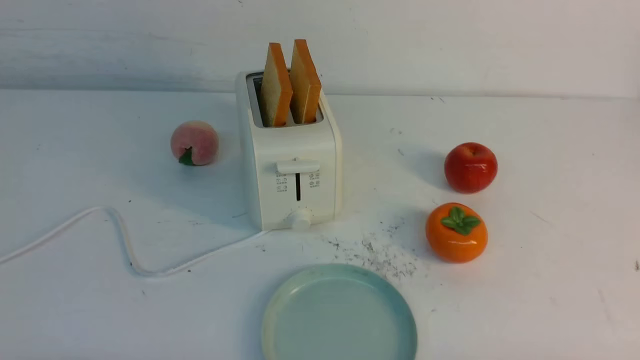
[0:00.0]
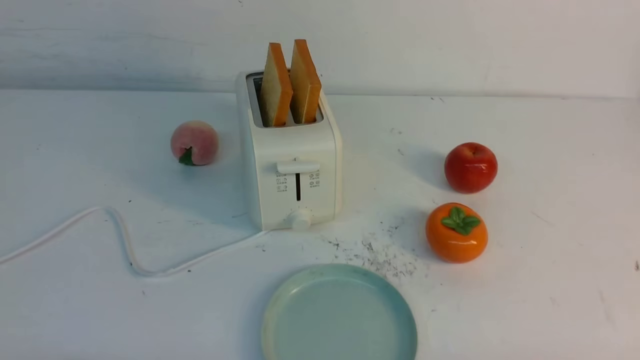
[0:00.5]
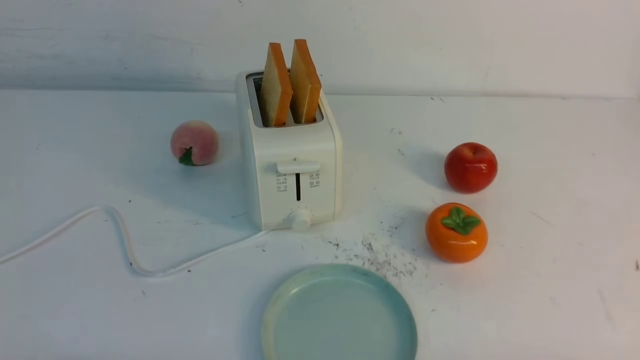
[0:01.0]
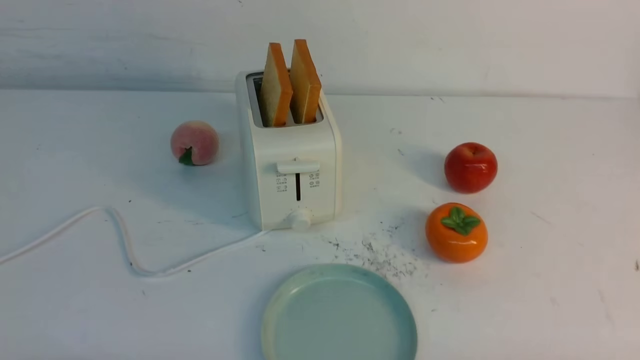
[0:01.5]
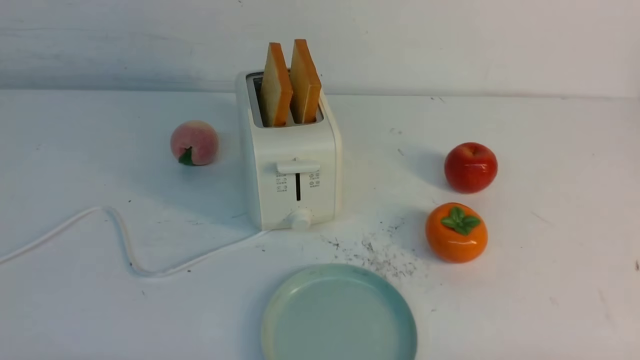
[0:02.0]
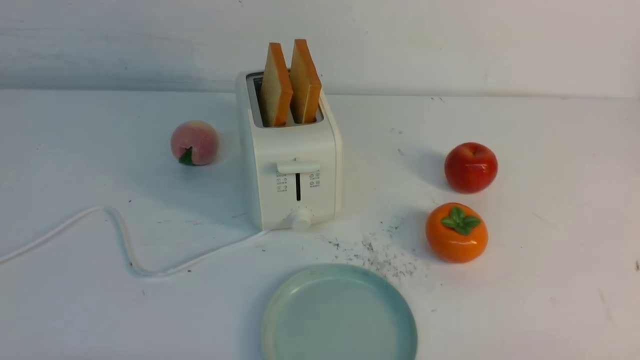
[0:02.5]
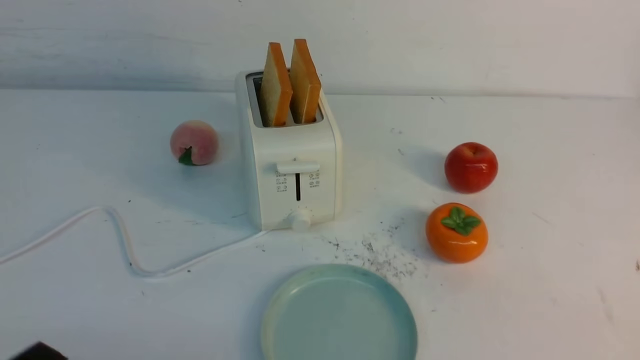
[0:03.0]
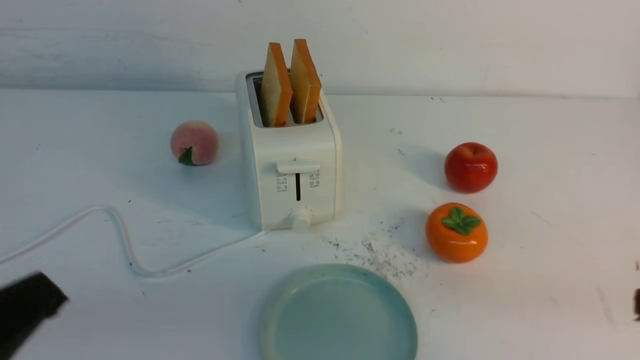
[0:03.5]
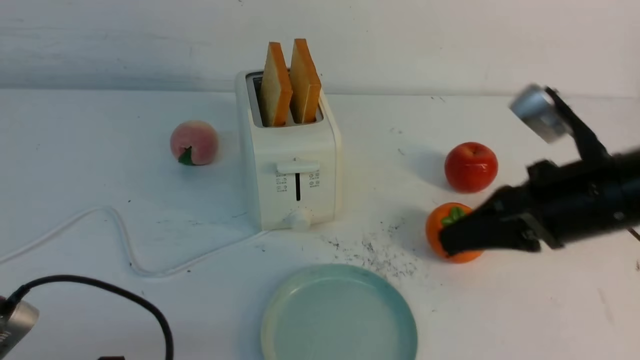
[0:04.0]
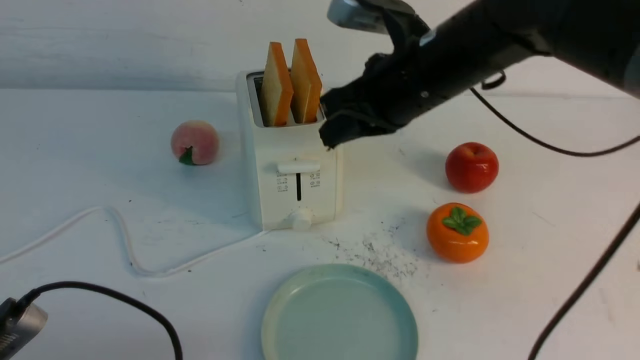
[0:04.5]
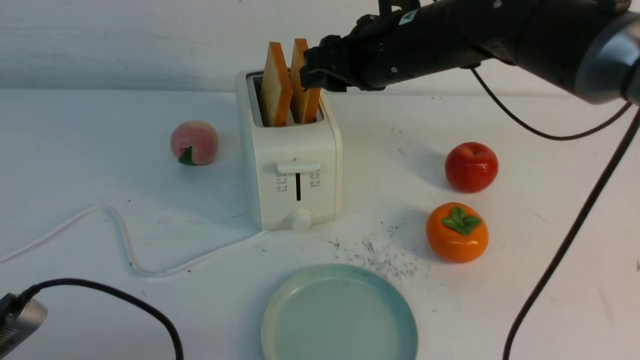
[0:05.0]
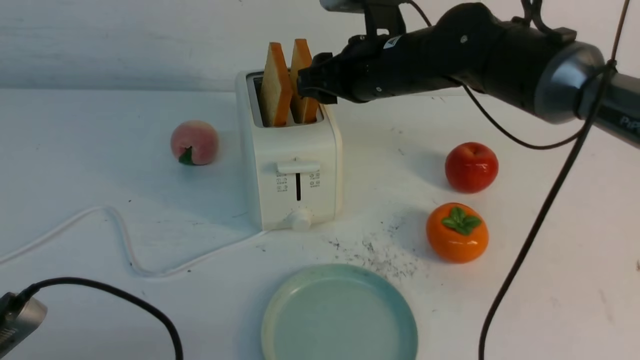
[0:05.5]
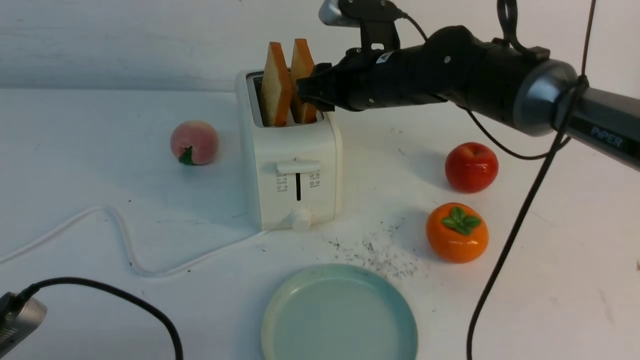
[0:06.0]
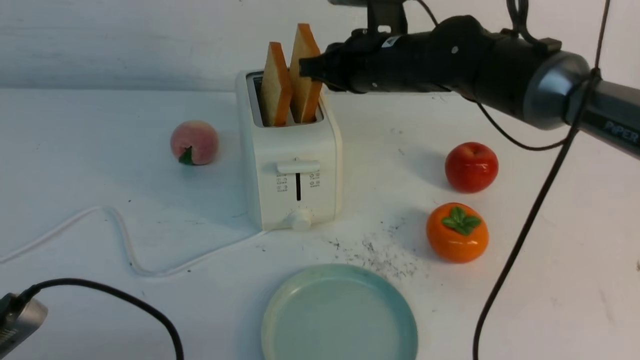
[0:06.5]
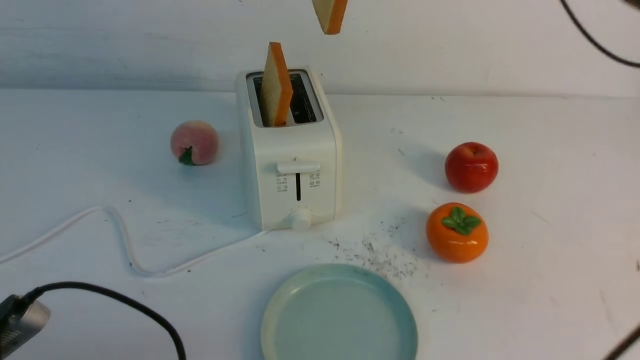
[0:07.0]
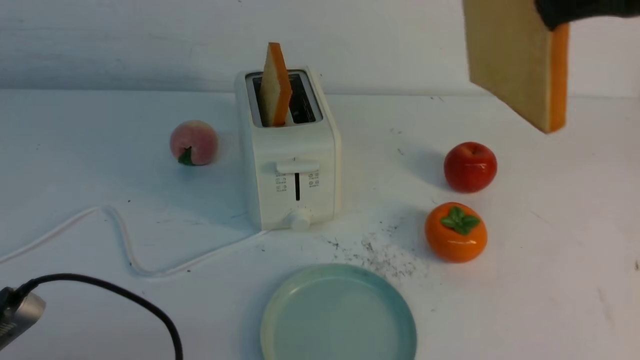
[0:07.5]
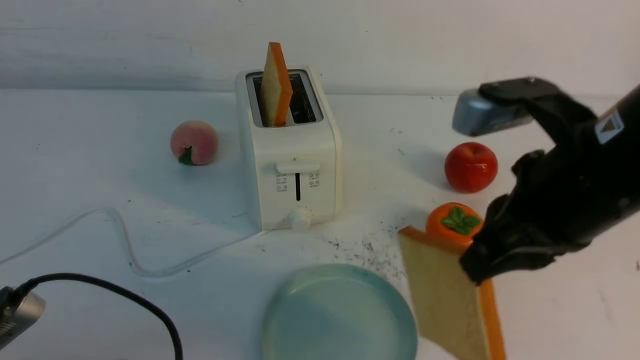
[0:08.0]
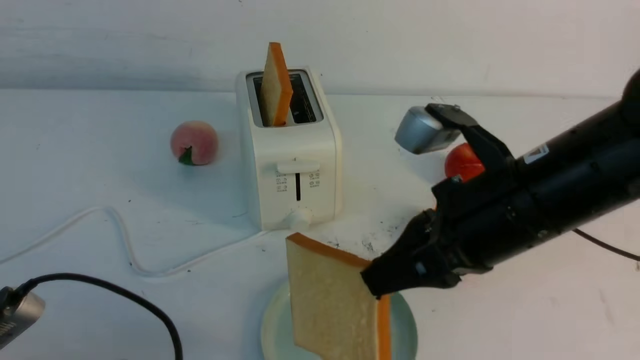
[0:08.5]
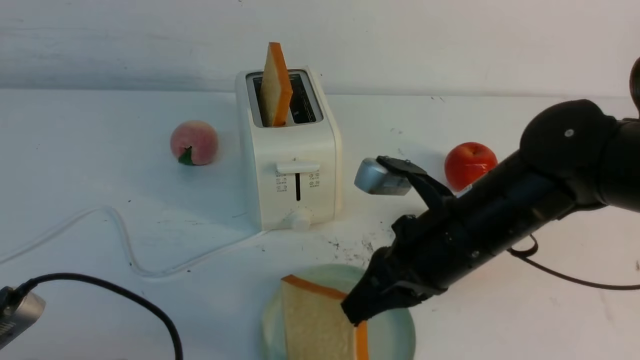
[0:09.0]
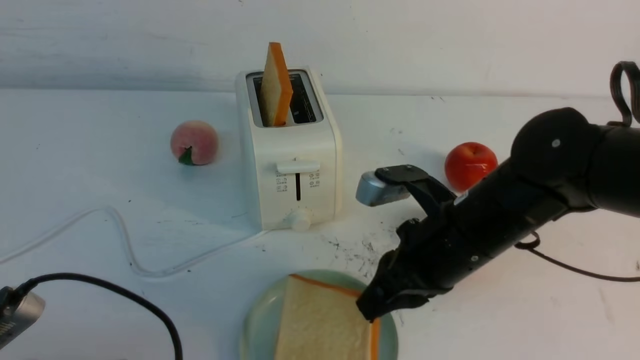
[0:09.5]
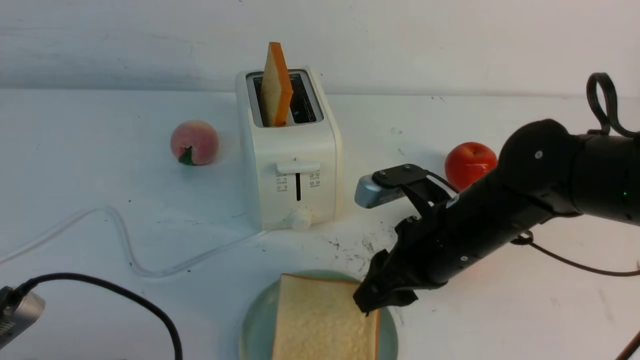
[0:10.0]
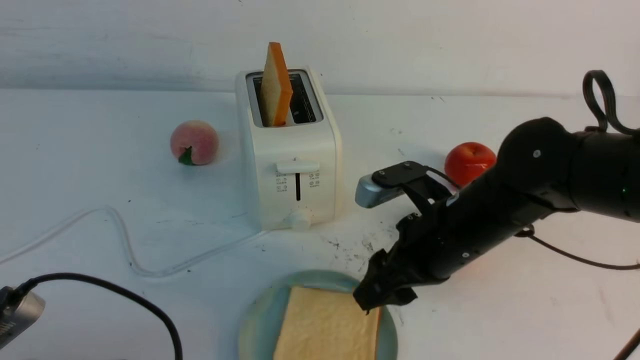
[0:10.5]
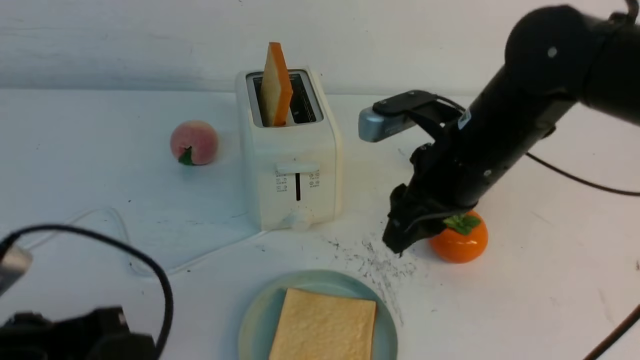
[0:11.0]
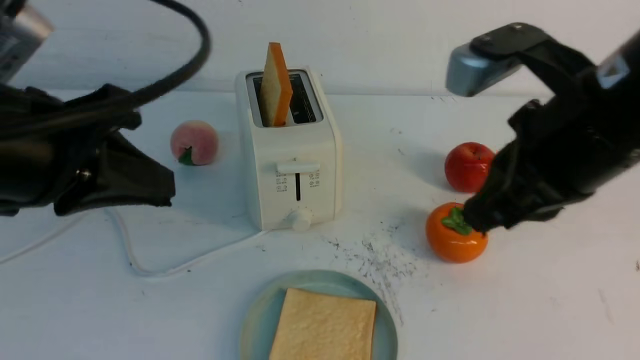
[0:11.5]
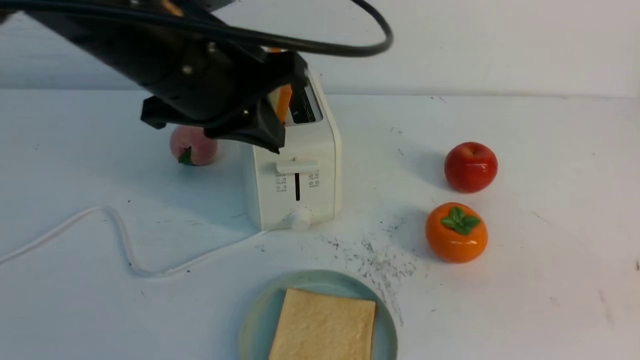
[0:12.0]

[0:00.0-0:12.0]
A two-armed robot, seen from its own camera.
Task of the whole recording: take toasted bread from bread machine on white table place on plate.
Step, 0:00.0 to 0:06.5: use the right arm to take out a slice of bread.
Step, 0:07.0 to 0:10.5: use the right arm to put a slice of bread into the plate.
0:02.0 to 0:04.0: The left gripper travels forward and upward by approximately 10 cm, and closes. The right gripper moves forward, upward and to the left, roughly 25 cm, and closes its fingers.
0:04.0 to 0:06.0: The right gripper shifts roughly 20 cm forward and to the left, and opens its fingers.
0:06.0 to 0:08.0: The right gripper heads backward and to the right, covering some 25 cm, and closes.
0:08.0 to 0:10.0: The right gripper heads downward and forward, covering approximately 15 cm, and opens.
0:10.0 to 0:12.0: The left gripper shifts about 30 cm forward, upward and to the right. Meanwhile the right gripper is displaced backward, upward and to the right by about 30 cm, and closes.

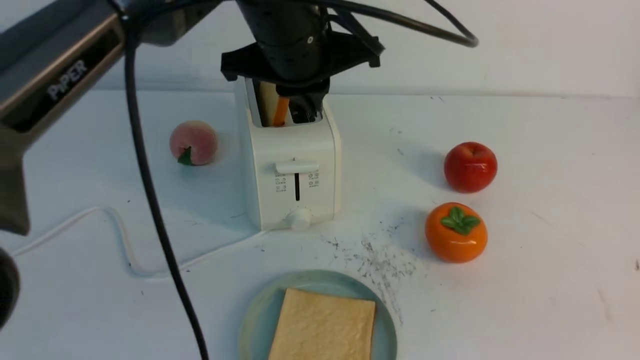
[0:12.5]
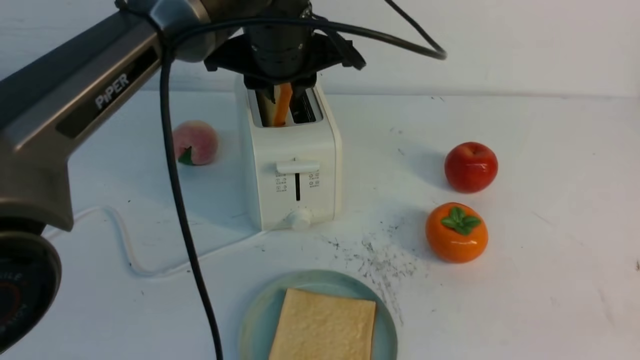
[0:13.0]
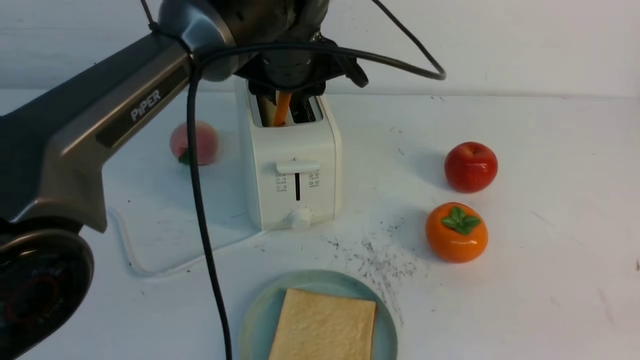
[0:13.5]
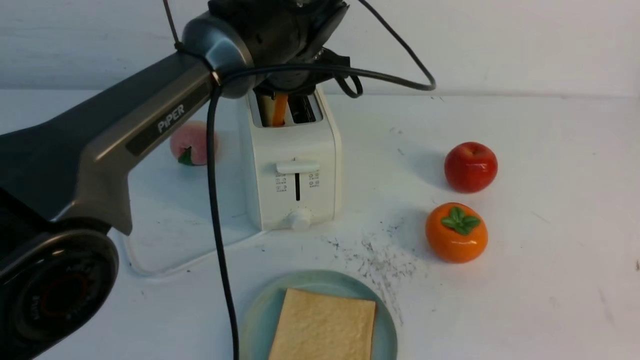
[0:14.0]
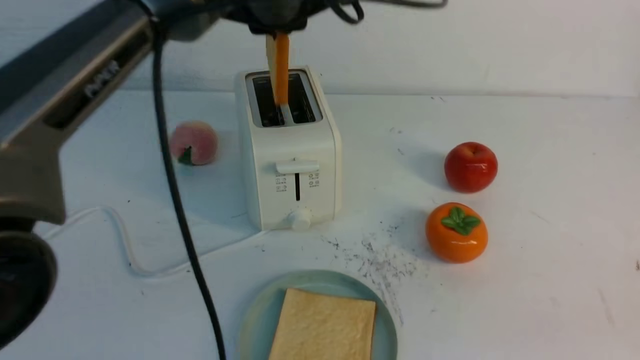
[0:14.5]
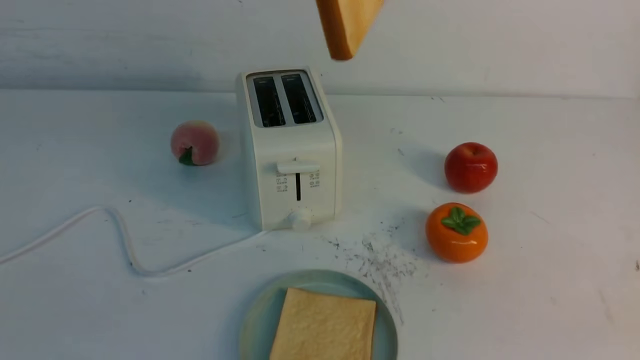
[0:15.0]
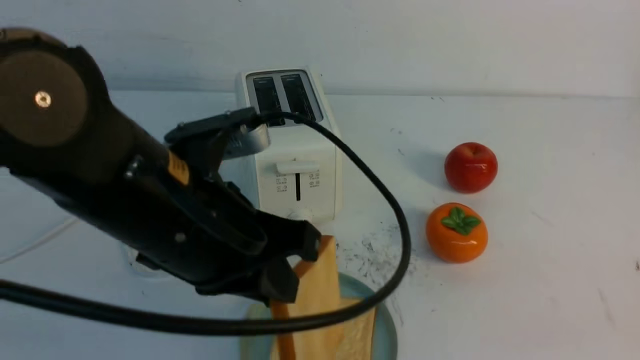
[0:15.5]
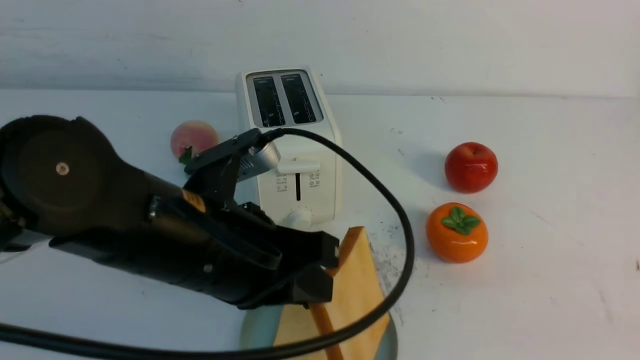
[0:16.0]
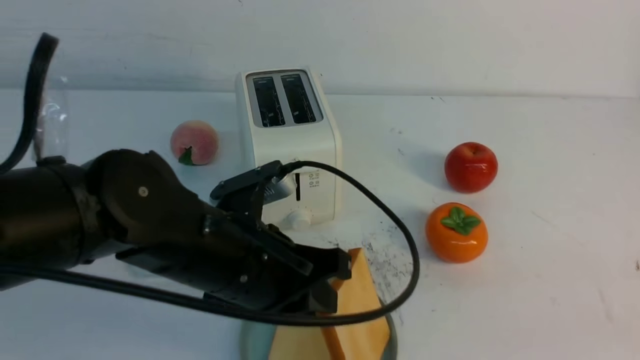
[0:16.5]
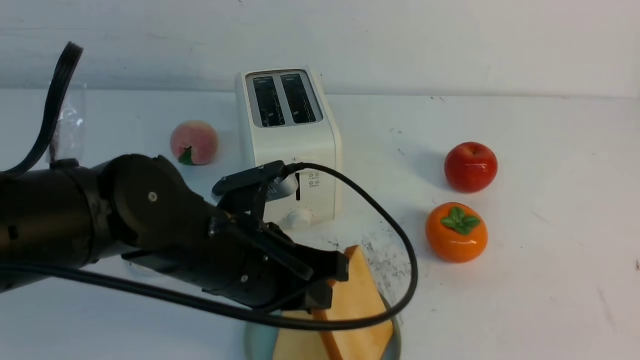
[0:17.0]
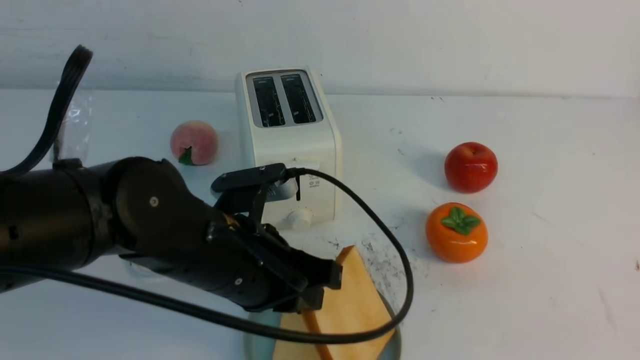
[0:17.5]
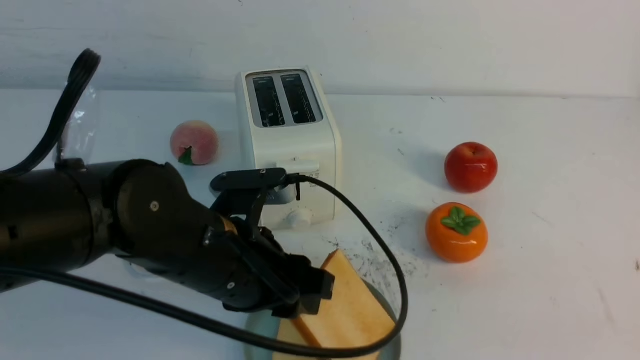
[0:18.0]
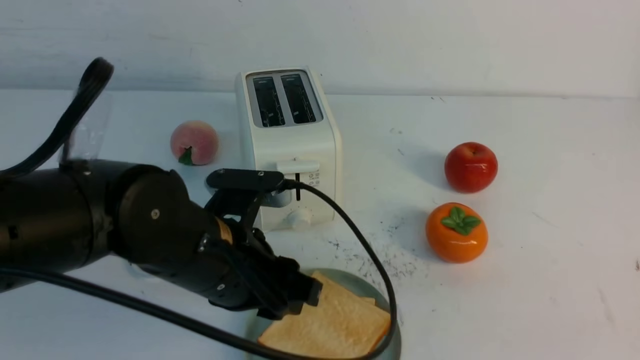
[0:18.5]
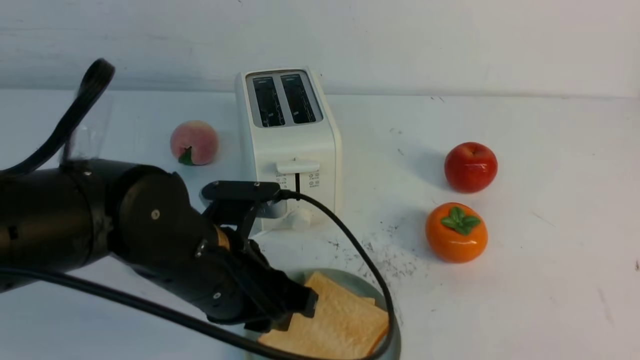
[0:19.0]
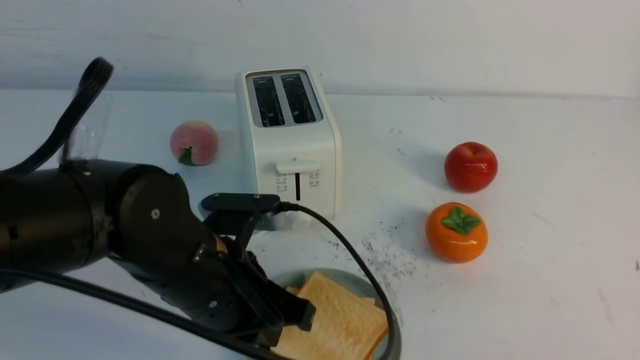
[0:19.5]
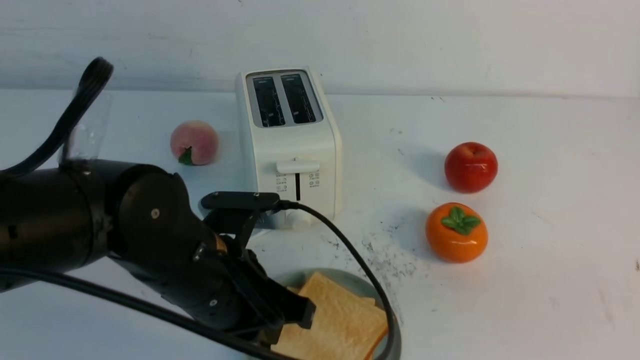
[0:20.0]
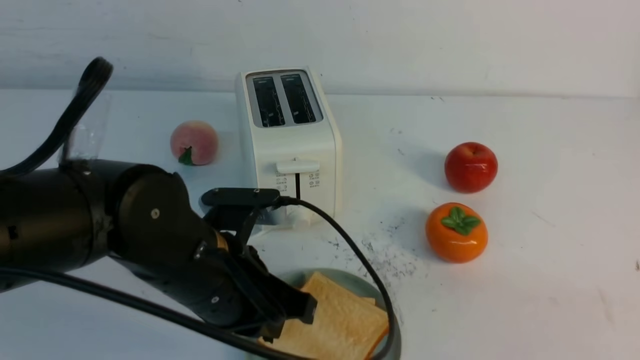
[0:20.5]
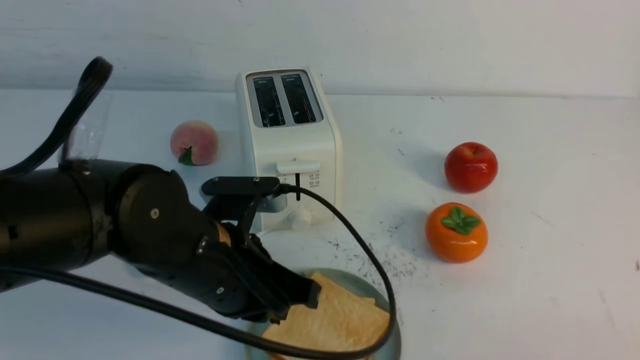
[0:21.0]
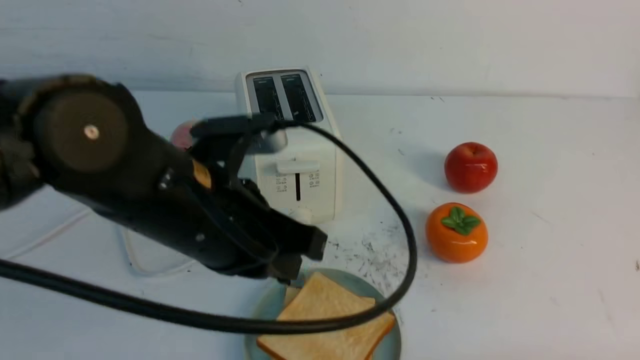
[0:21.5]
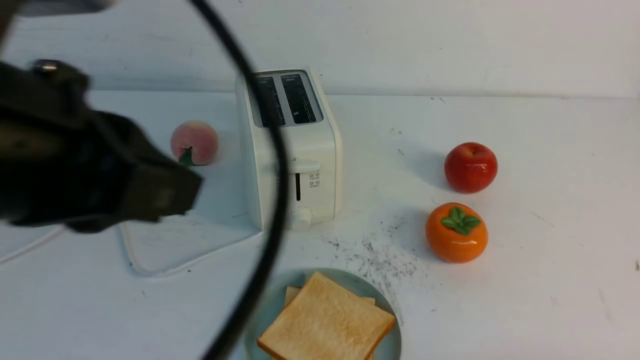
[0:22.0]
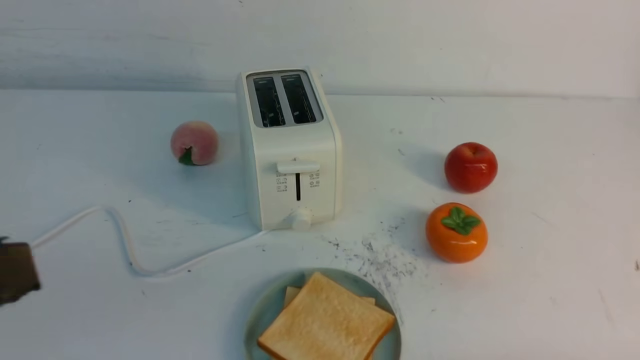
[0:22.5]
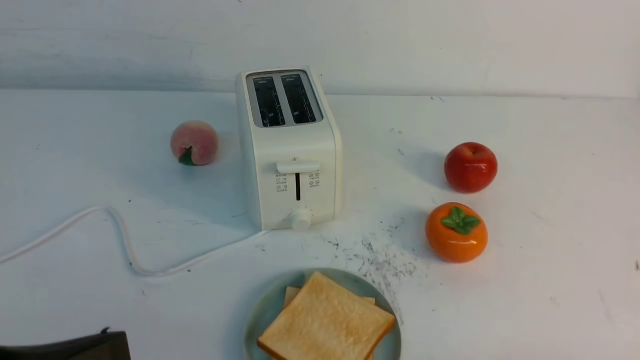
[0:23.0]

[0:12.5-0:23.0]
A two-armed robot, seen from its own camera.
Task of the whole recording: take toasted bread from bread machine on white table place on plate.
Step, 0:12.5 to 0:14.5: use the left arm to take out a slice of bread.
Step, 0:15.0 to 0:18.5: use the left arm to put a slice of bread into the empty plate.
0:12.5 to 0:14.5: The left gripper is displaced upward by about 5 cm, and opens and closes again.
0:14.5 to 0:16.5: The left gripper shifts some 25 cm downward and backward.
0:16.5 to 0:19.0: The left gripper opens and closes again.
0:19.0 to 0:21.0: The left gripper closes. Meanwhile the right gripper goes approximately 10 cm downward.
0:21.0 to 0:23.0: The left gripper travels backward and to the left by about 20 cm, and travels upward and back again, approximately 20 cm each way.
